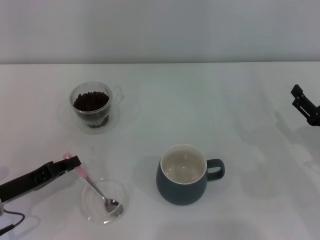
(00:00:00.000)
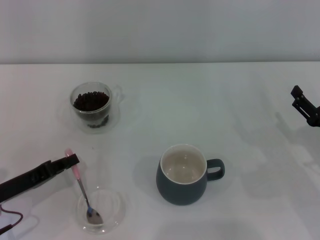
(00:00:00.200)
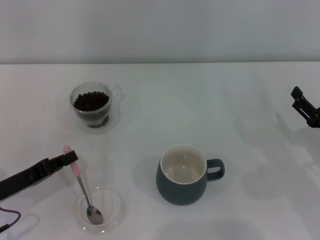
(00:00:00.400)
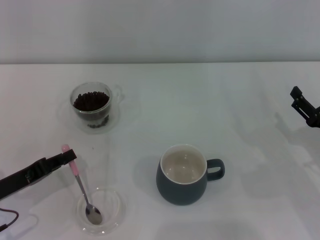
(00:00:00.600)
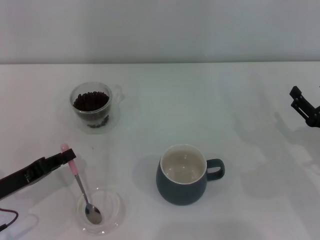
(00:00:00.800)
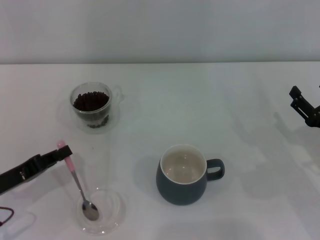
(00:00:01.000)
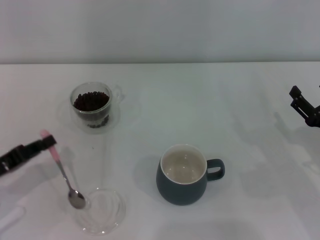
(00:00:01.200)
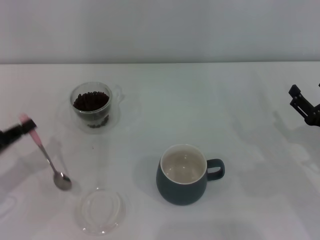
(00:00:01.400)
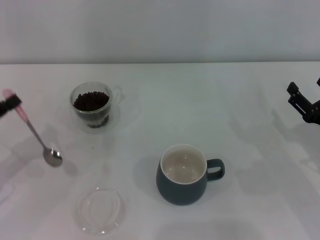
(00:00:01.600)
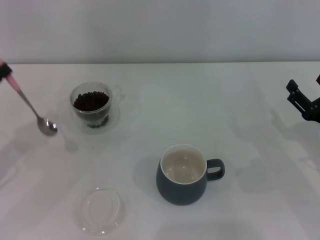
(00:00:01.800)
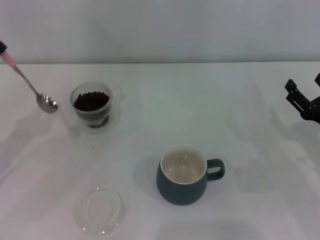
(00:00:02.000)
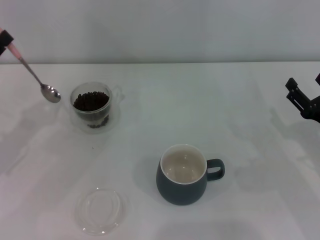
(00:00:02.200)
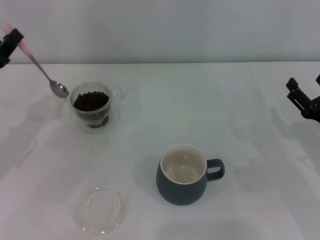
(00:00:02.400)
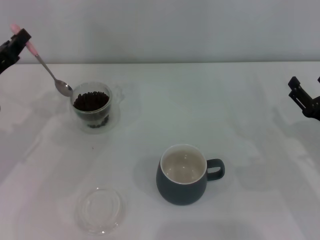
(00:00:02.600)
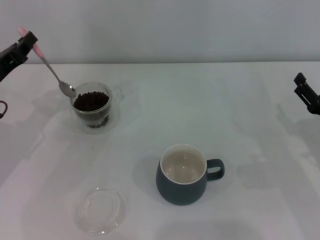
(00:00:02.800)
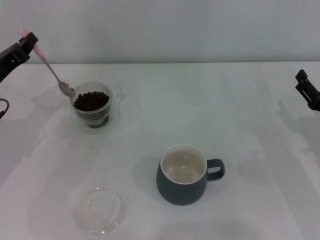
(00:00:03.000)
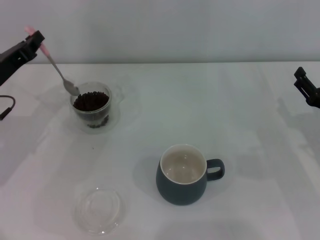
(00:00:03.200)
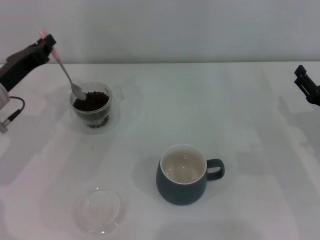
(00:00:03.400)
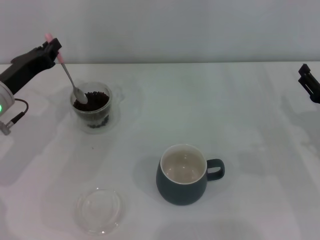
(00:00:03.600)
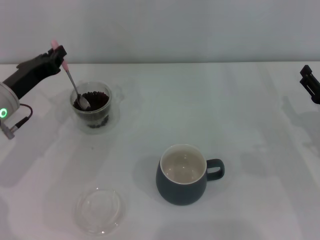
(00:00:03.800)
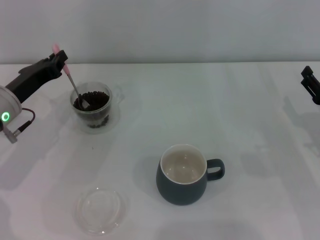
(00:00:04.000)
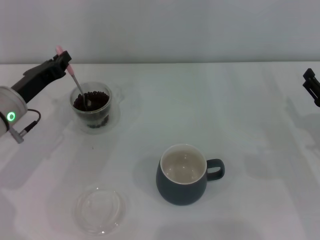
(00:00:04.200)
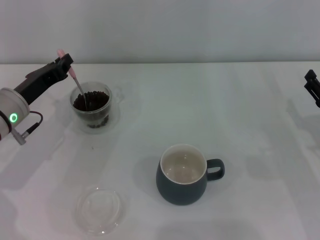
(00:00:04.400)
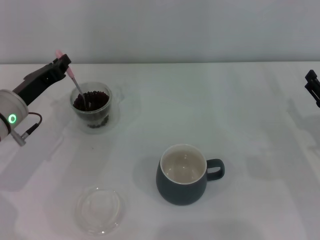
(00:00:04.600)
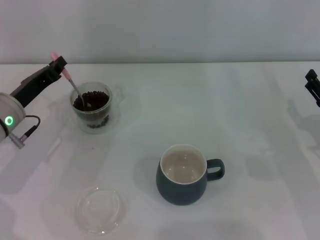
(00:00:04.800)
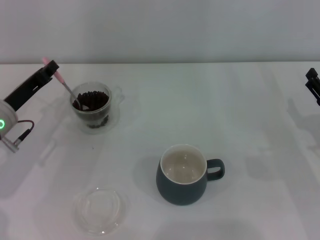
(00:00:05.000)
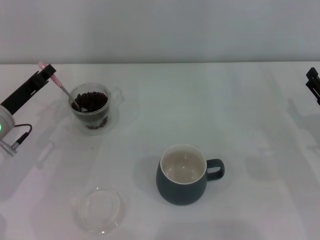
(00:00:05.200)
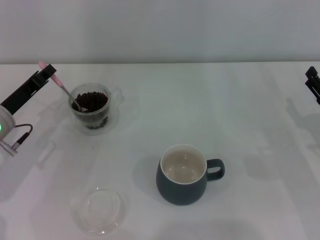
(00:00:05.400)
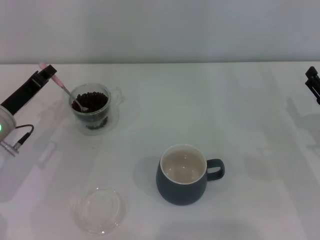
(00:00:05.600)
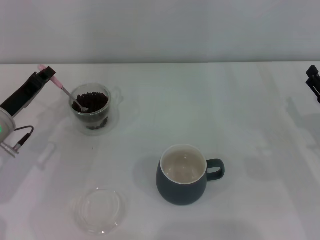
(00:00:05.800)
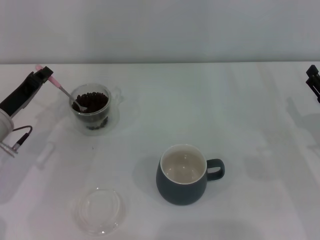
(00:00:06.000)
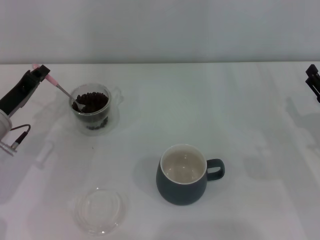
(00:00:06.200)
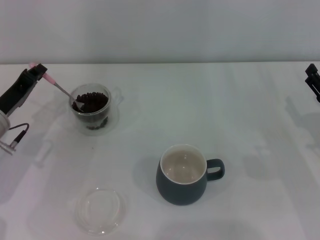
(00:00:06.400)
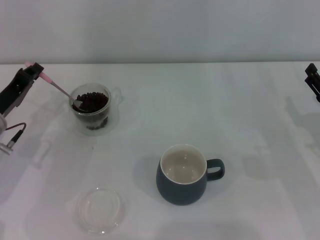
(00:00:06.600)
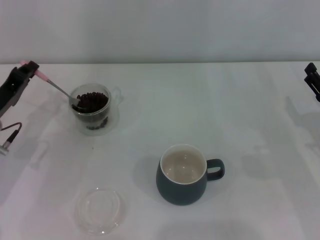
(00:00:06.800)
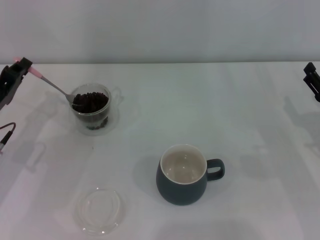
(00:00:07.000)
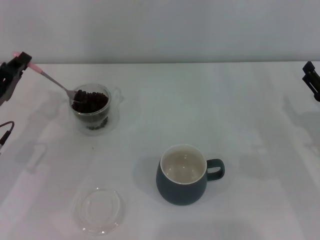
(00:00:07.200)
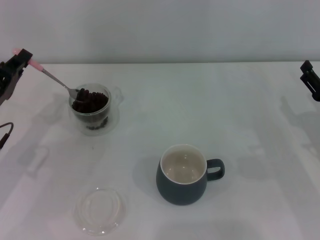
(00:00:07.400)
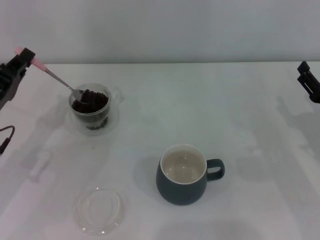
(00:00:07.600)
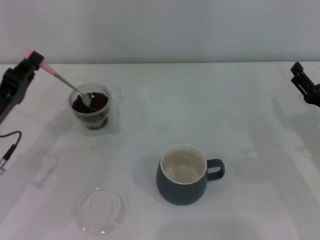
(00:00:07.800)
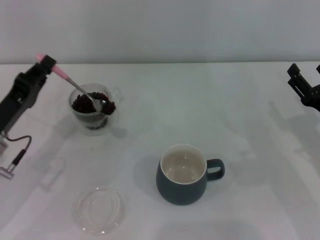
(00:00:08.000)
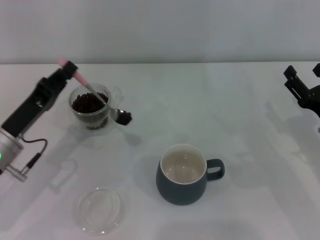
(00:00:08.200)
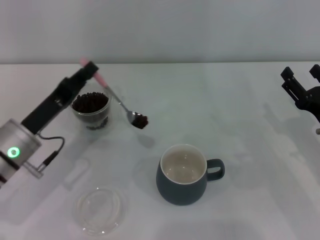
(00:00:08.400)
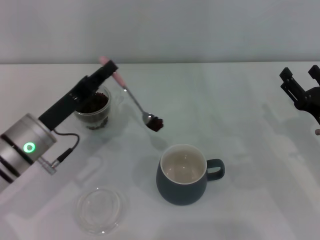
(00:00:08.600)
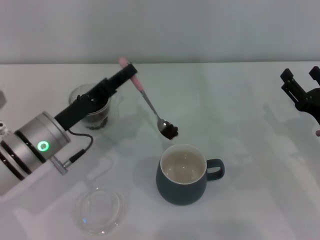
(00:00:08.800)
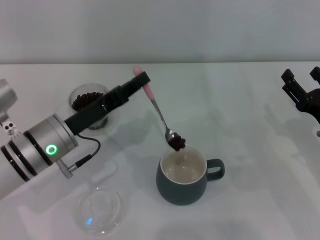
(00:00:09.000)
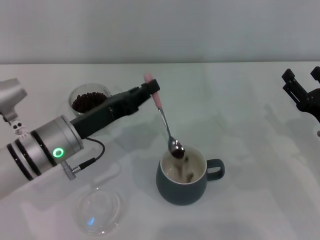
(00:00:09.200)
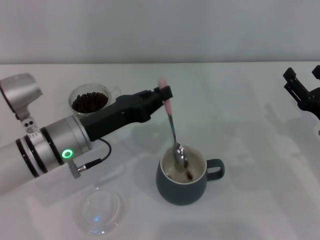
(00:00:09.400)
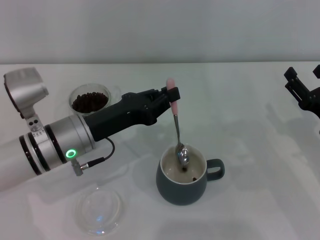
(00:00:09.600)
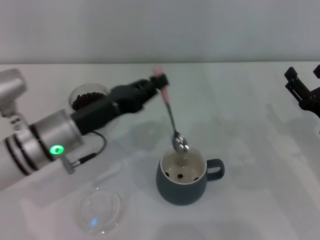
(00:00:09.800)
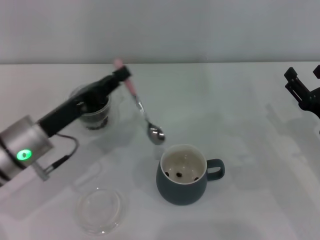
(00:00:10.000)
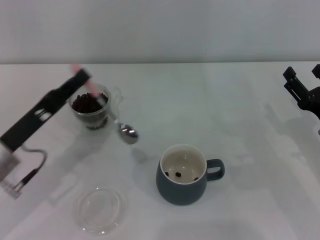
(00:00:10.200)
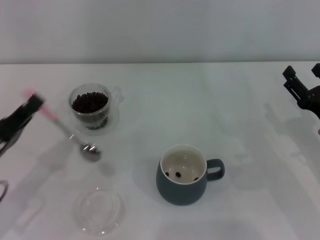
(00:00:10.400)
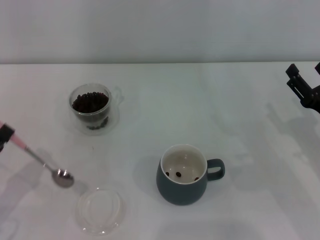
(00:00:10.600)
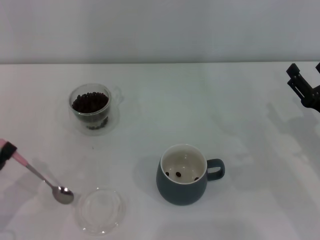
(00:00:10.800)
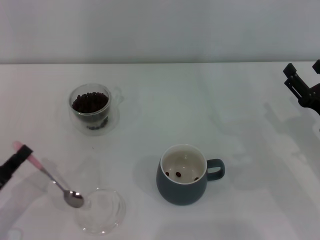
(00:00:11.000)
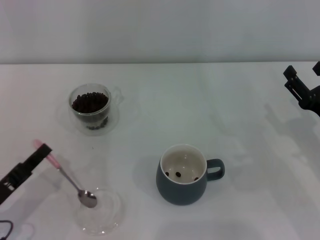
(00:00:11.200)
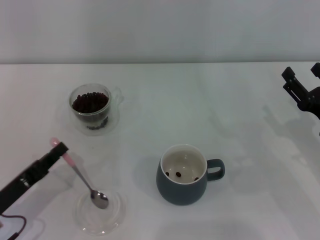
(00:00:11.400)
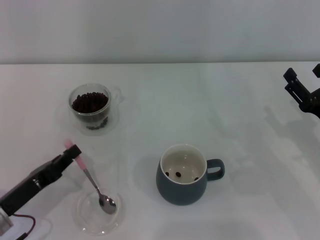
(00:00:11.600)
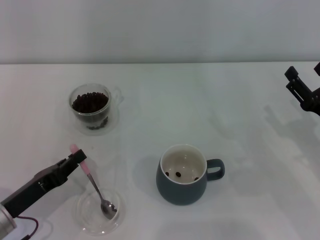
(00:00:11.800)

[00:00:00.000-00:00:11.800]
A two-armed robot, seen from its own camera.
Task of the whole recording: Use a pink spoon to take out the coffee beans from the glass and pour them into the gray cup.
Step, 00:00:01.600 to 00:00:09.800: Scoop a spoonful of beans into the cup with the right gripper.
00:00:00.000 to 00:00:01.400: The left gripper ends up roughly 5 cm from where it was.
00:00:01.400 to 00:00:03.000: The left gripper travels forward and to the right by some 10 cm.
00:00:03.000 to 00:00:04.400: The left gripper ends up roughly 5 cm from where it was.
00:00:06.000 to 00:00:07.400: The grippers stay close to where they were, moving slightly.
00:00:07.400 to 00:00:08.800: The left gripper goes some 10 cm to the right.
00:00:08.800 to 00:00:10.400: The left gripper travels to the left and backward by some 15 cm.
00:00:10.400 to 00:00:11.800: The left gripper shifts by approximately 5 cm.

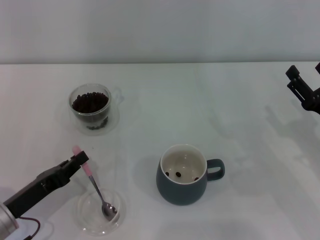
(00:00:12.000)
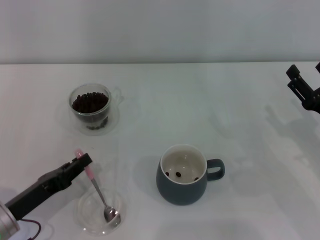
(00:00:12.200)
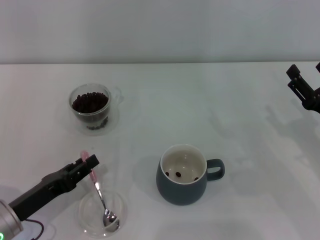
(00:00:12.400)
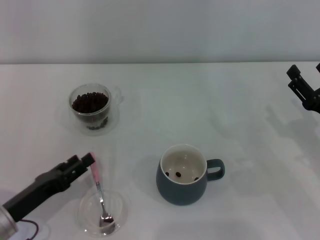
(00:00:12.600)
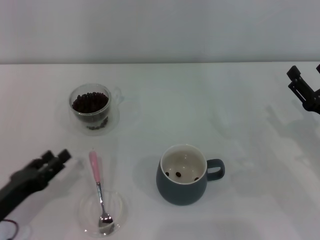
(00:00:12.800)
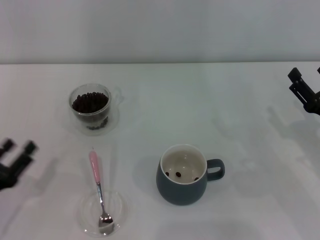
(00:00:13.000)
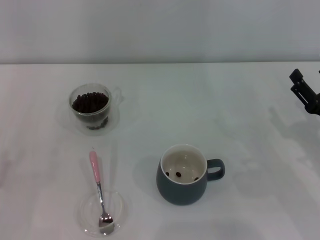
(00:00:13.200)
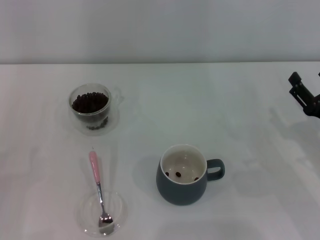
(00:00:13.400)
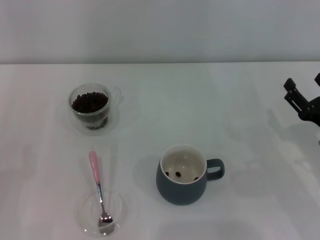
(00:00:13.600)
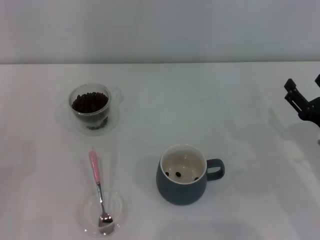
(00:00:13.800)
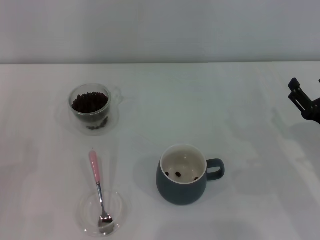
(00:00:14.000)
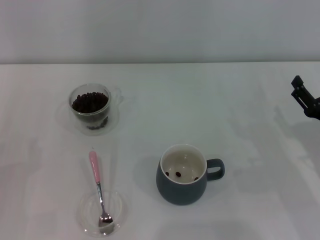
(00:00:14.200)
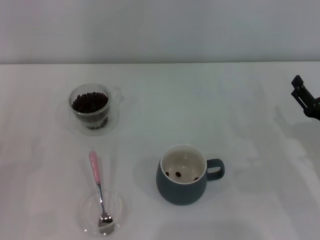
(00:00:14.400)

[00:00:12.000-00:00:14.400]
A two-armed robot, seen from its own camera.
Task of the whole recording: Use a pink spoon to take out the coffee beans from the glass and pour them into the gray cup.
00:00:12.000 to 00:00:13.200: The left gripper is displaced to the left by some 5 cm, and opens its fingers.
